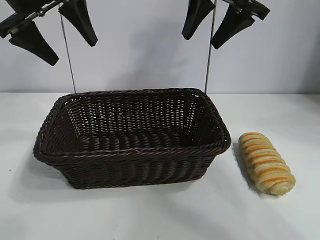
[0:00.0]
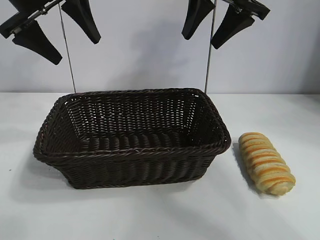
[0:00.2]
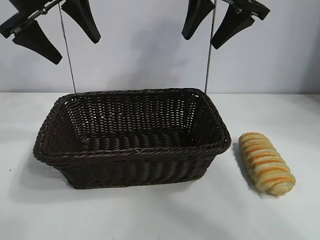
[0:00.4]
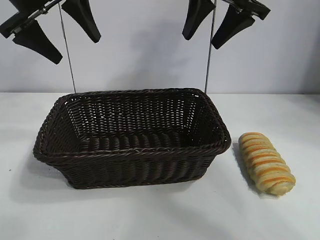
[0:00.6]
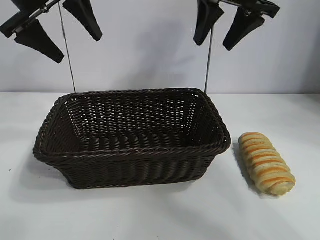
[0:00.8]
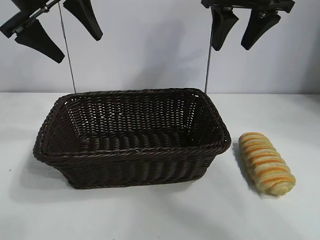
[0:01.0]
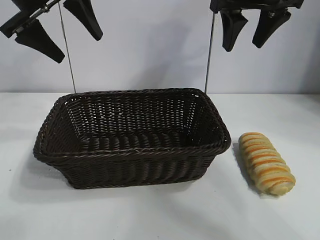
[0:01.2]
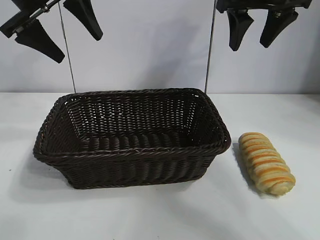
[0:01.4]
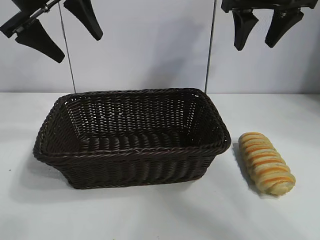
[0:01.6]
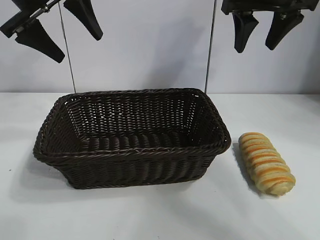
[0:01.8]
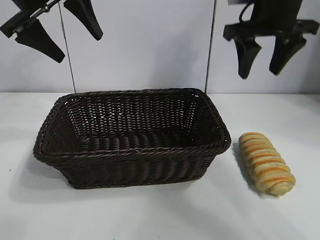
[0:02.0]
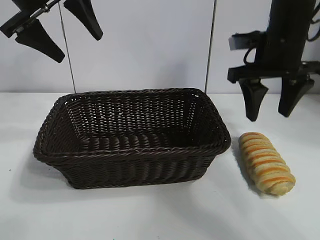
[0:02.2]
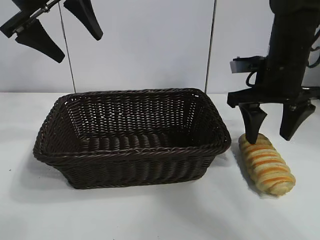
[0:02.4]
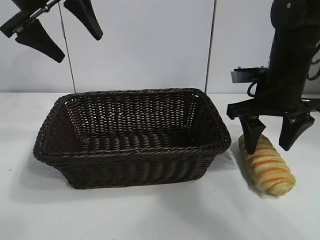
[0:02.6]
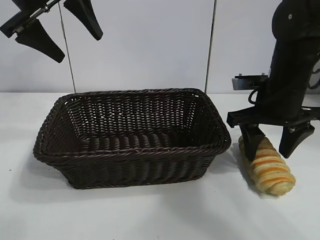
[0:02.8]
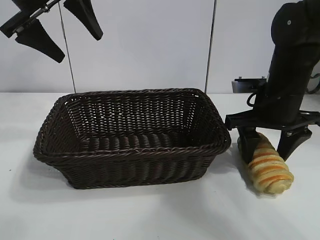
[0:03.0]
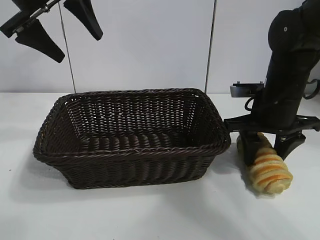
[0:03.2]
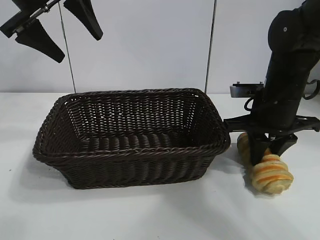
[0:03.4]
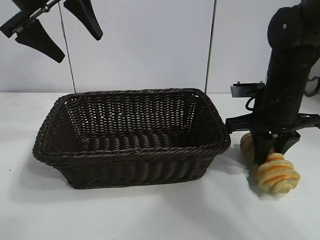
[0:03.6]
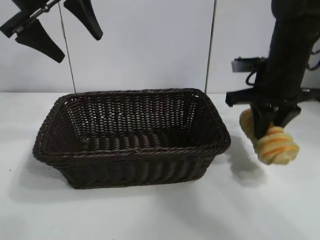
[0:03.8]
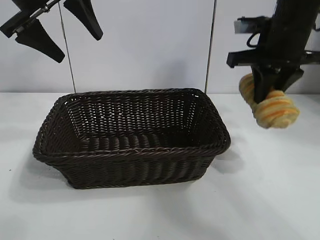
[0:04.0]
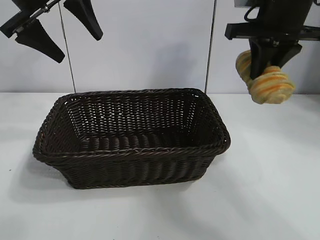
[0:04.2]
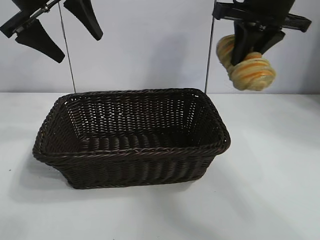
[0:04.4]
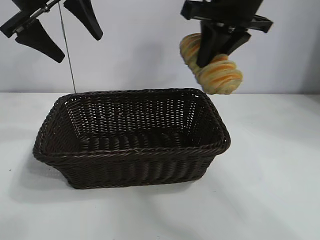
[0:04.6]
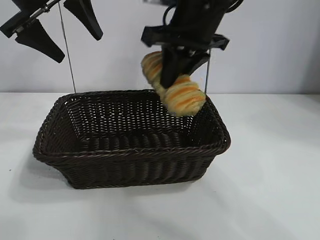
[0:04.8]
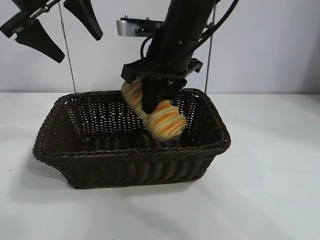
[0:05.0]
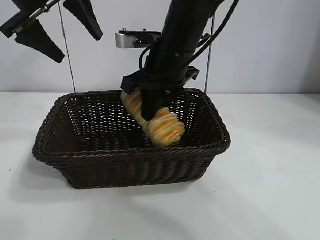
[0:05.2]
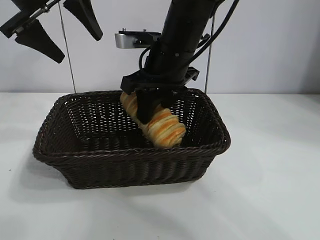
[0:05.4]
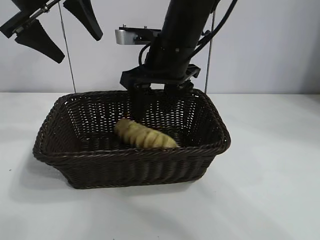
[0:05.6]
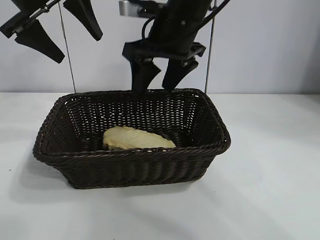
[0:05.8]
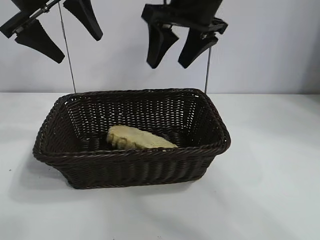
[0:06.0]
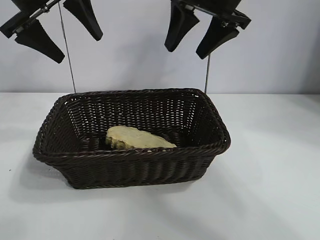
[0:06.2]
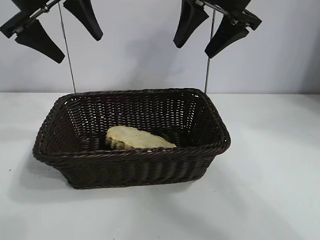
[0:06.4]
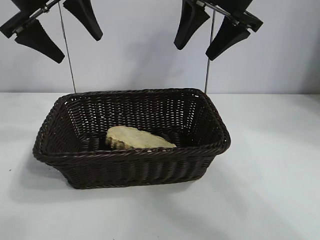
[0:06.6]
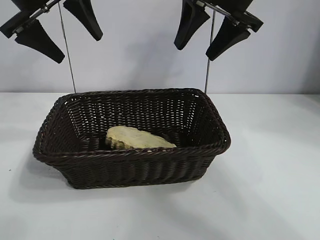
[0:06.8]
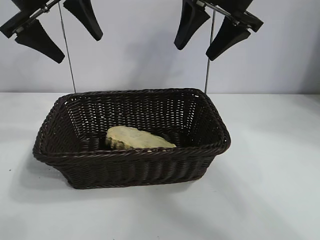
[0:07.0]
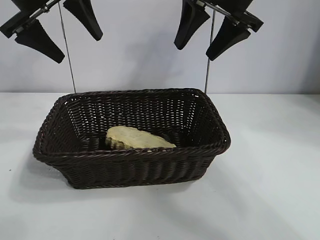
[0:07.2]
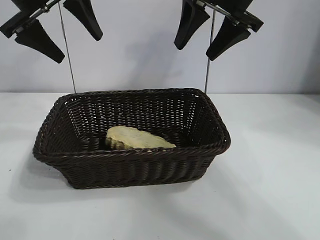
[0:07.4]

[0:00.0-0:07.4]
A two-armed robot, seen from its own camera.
Task of the whole recording: pick up the long bread and put it into the basket.
Step, 0:00.0 to 0:03.4: Grasp the long bread with right gripper.
Step, 0:03.6 to 0:05.6: Place the long bread in the basket with right gripper.
